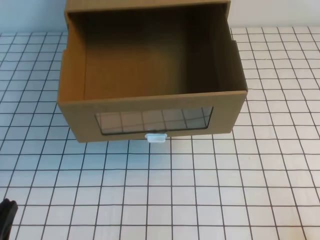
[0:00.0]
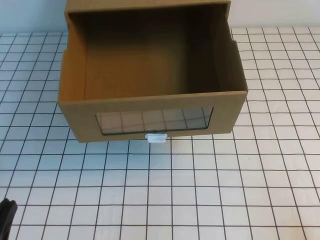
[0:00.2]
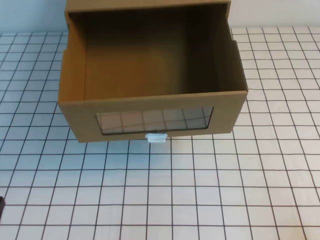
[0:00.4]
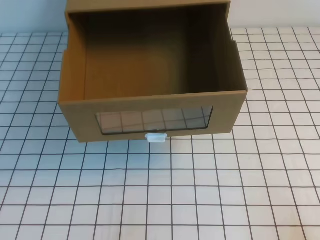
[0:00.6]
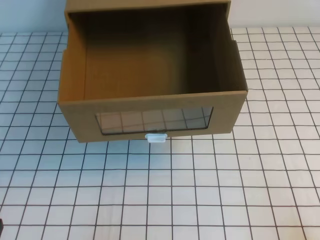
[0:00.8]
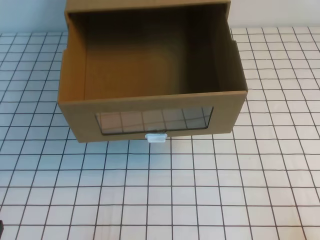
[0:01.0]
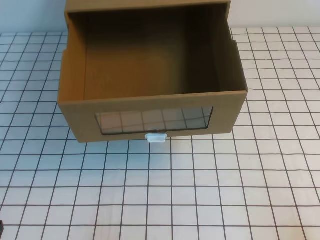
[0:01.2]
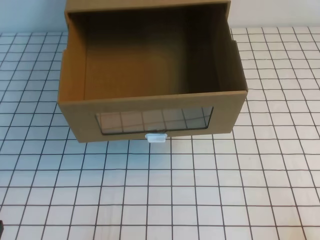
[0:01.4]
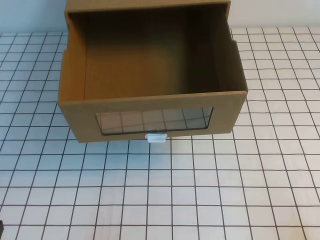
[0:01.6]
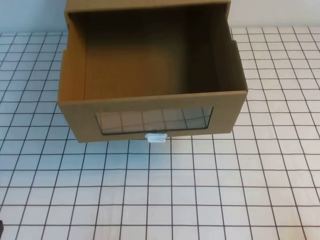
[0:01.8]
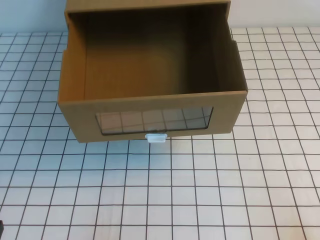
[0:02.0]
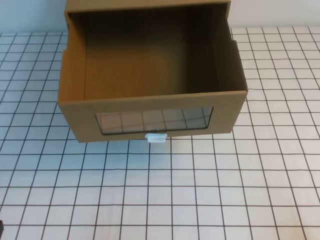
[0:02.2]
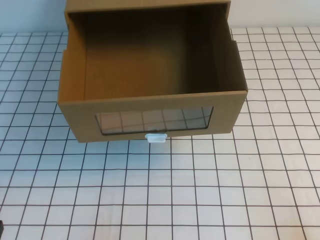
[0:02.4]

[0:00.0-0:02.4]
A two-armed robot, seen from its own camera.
Task of the whole recording: open the shoebox on the white tablecloth.
0:01.2 to 0:02.4: Both grippers stay put.

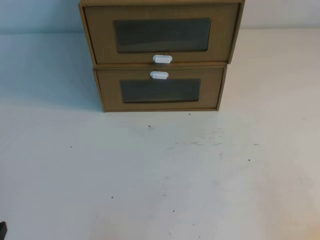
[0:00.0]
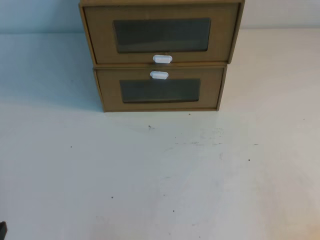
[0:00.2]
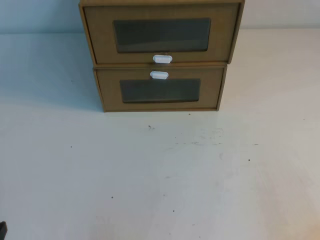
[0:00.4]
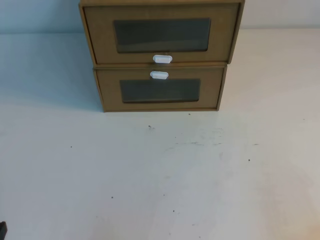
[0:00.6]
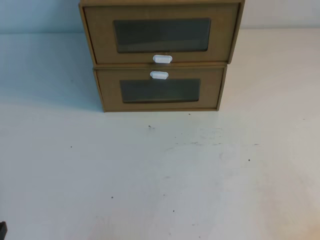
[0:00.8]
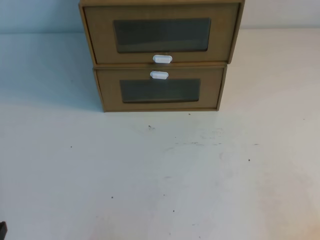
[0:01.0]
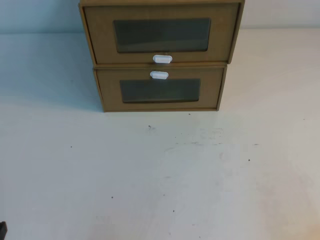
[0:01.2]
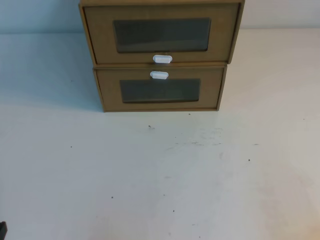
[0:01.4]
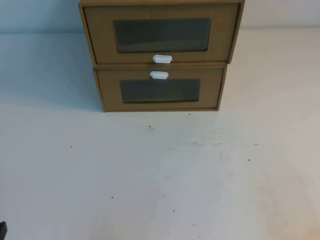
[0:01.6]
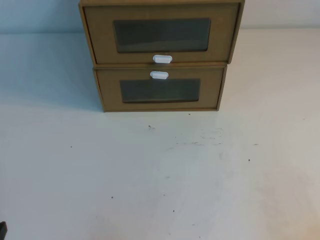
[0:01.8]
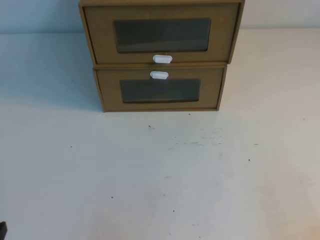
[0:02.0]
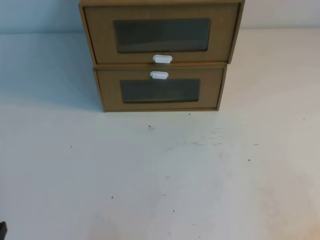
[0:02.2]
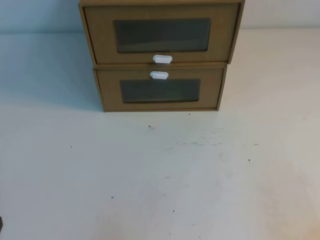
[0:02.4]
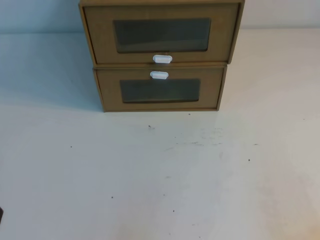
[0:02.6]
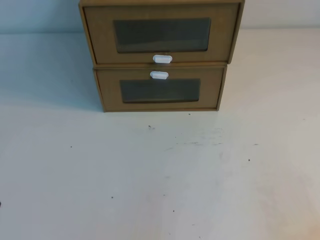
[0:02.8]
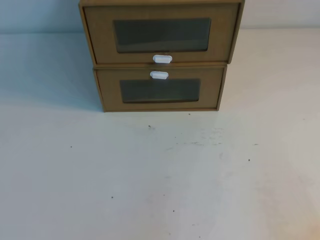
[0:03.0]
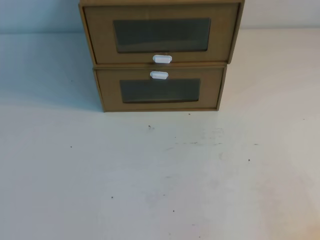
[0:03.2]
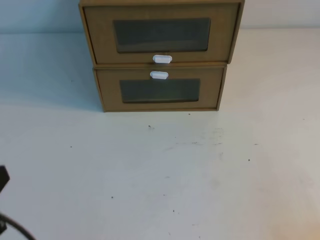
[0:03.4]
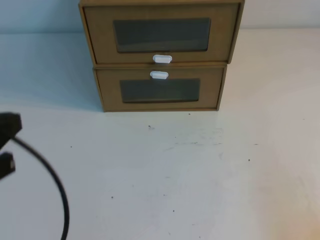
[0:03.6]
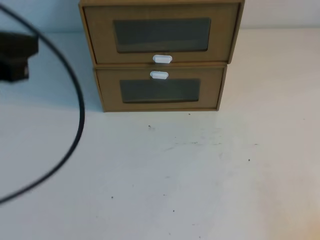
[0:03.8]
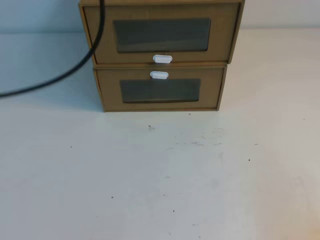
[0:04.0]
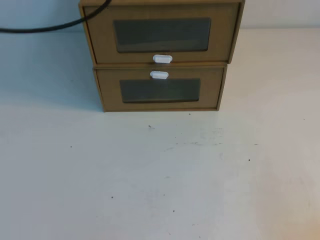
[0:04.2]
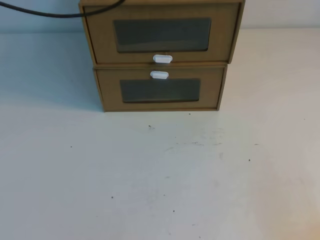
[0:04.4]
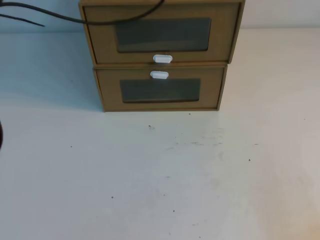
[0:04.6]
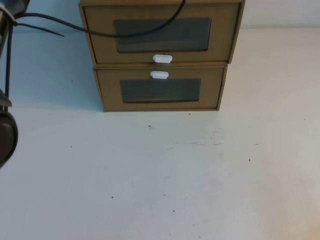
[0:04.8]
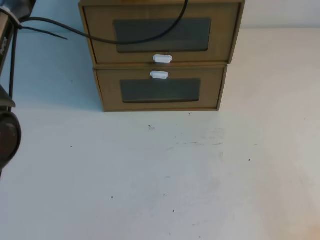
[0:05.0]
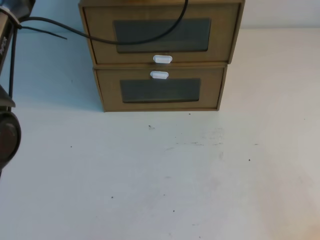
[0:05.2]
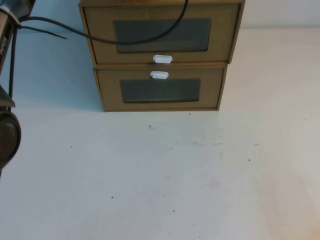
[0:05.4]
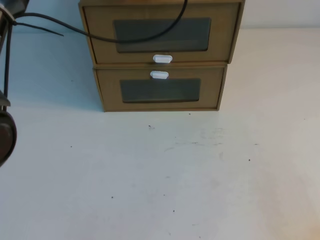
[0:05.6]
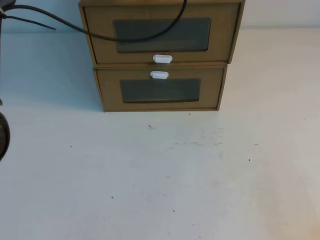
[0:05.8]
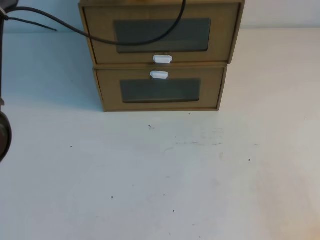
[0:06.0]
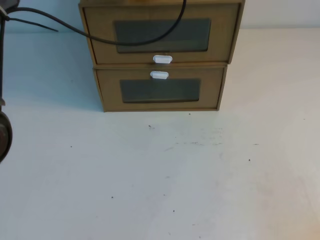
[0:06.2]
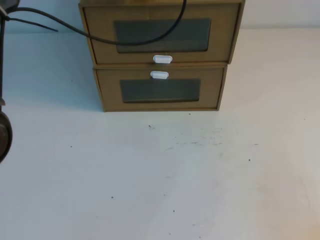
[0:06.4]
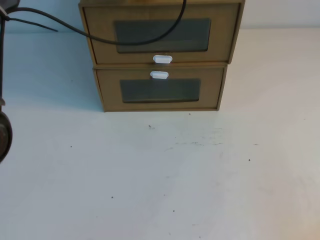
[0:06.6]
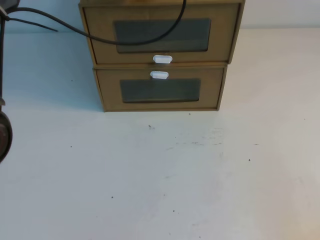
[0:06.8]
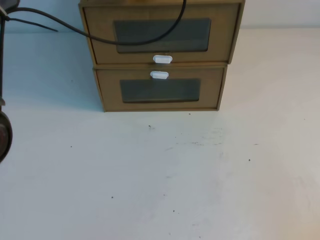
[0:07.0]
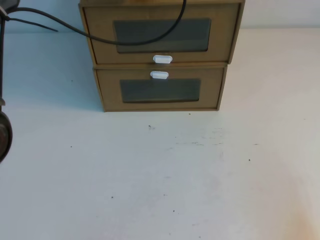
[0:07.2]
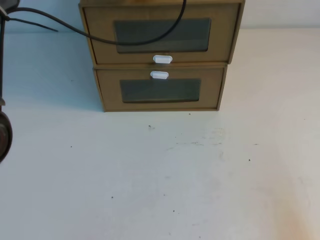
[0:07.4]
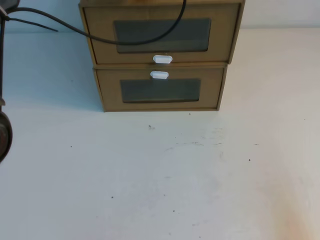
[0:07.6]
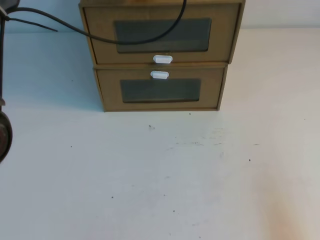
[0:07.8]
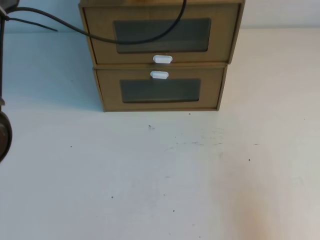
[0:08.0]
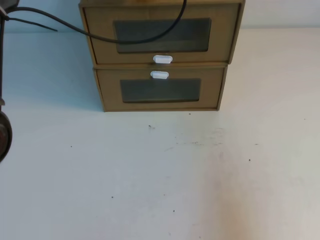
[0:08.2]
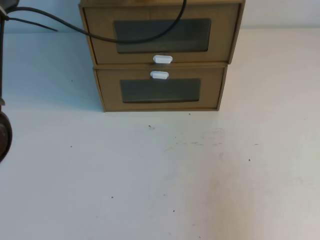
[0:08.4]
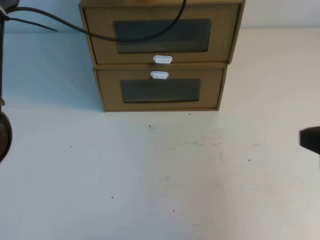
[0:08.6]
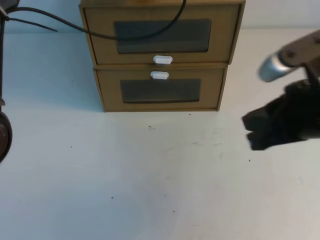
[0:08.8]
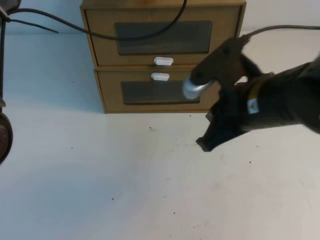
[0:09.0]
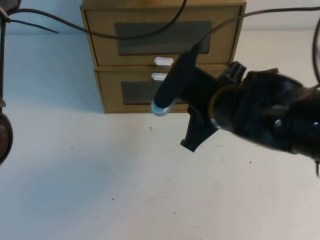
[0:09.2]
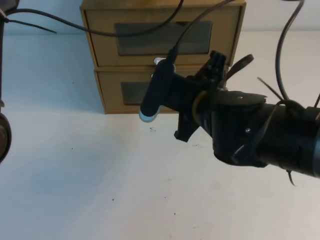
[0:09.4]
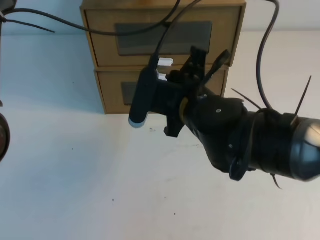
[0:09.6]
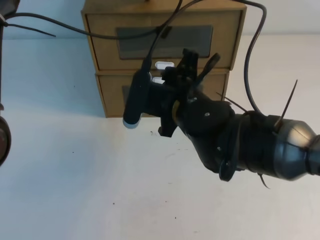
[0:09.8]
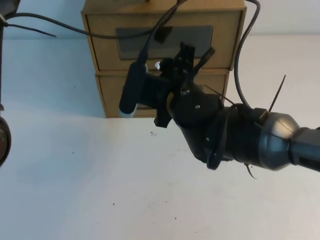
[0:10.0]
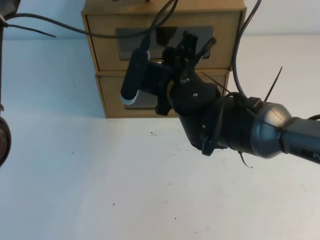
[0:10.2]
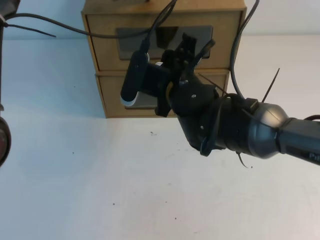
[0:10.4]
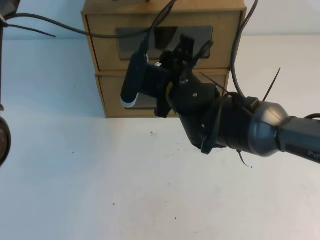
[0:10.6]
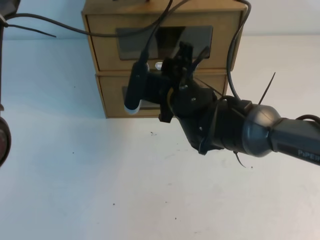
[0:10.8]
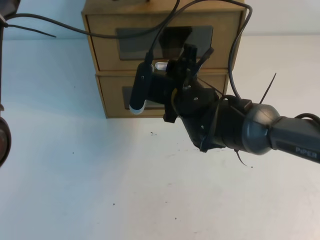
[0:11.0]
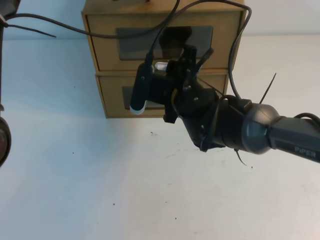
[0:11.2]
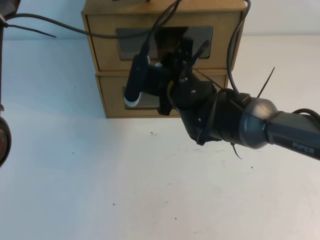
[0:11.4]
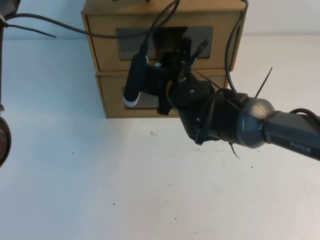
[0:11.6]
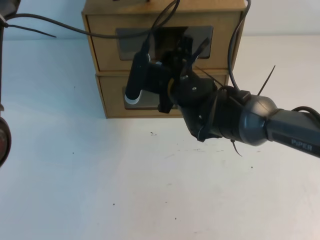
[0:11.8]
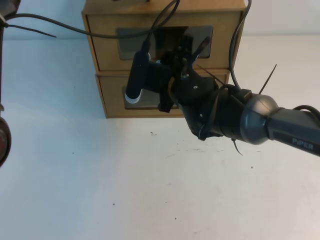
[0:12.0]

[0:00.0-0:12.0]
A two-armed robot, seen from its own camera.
Task of the whole recording: open the shoebox on the table.
0:03.0 to 0:04.4: The left gripper heads forward and upward, covering approximately 40 cm.
0:04.4 to 0:06.0: The left gripper goes approximately 10 cm forward, downward and to the right.
0:07.6 to 0:09.0: The right gripper moves forward, to the left and upward, roughly 25 cm.
0:09.0 to 0:10.4: The right gripper shifts approximately 20 cm to the left and forward, and opens its fingers.
0:10.4 to 0:12.0: There are only small adjustments of the grippers.

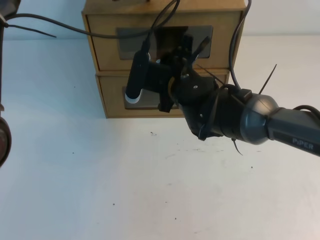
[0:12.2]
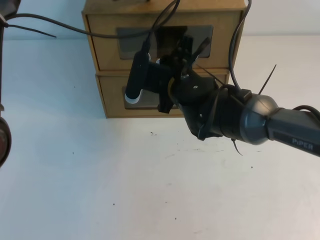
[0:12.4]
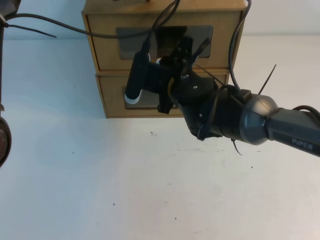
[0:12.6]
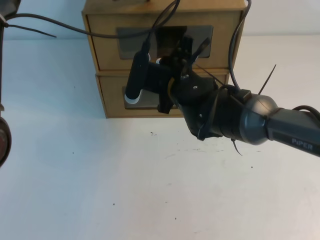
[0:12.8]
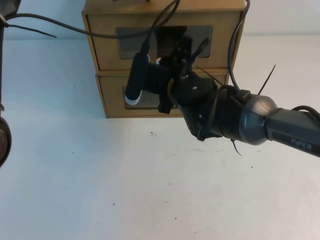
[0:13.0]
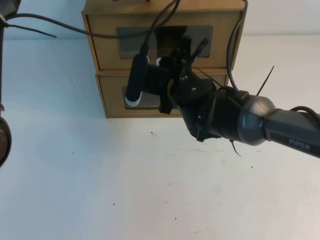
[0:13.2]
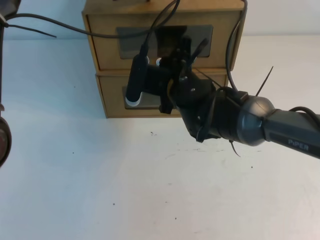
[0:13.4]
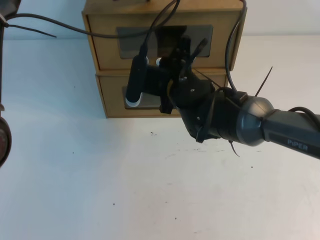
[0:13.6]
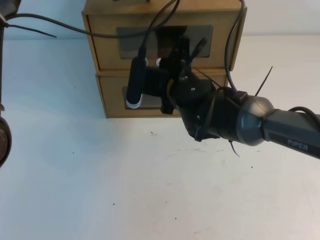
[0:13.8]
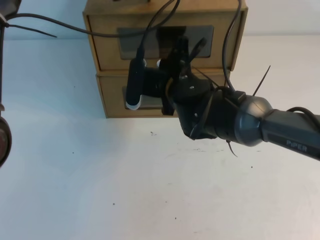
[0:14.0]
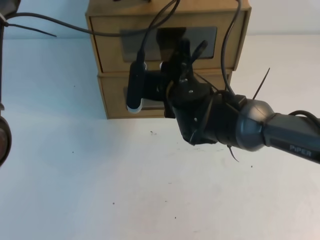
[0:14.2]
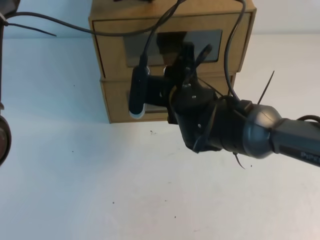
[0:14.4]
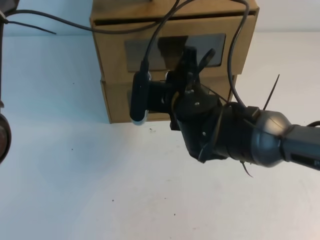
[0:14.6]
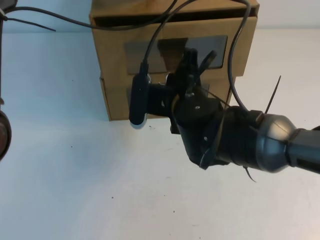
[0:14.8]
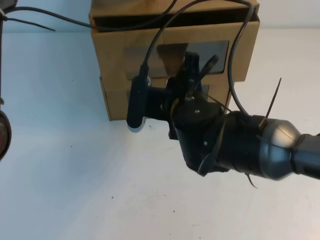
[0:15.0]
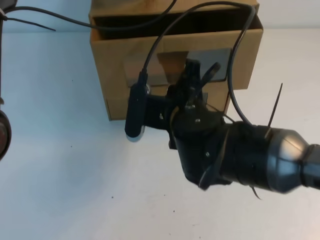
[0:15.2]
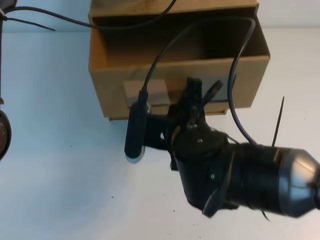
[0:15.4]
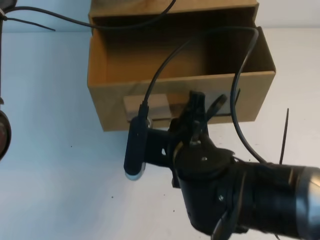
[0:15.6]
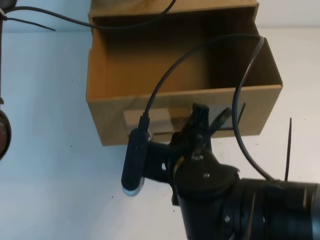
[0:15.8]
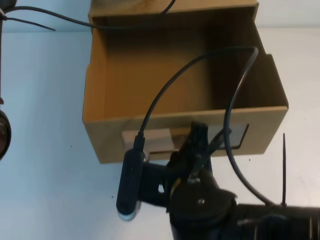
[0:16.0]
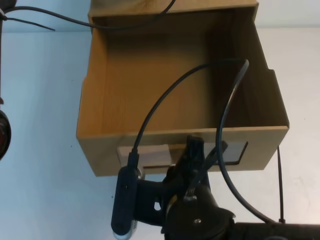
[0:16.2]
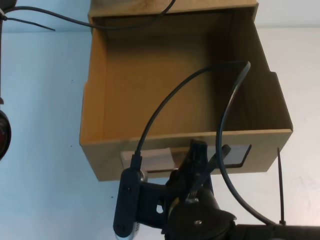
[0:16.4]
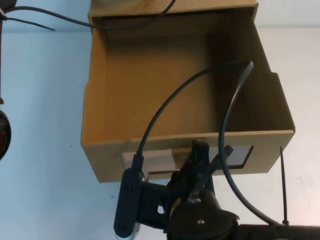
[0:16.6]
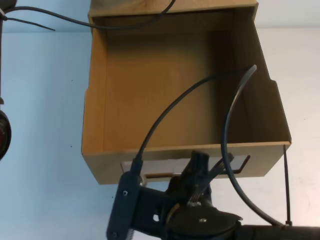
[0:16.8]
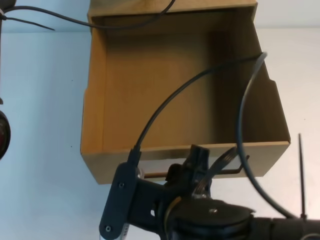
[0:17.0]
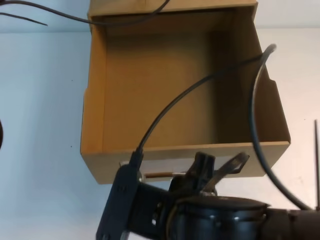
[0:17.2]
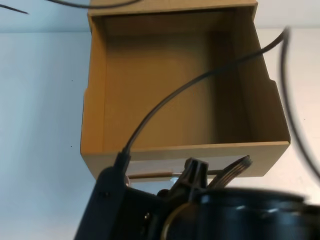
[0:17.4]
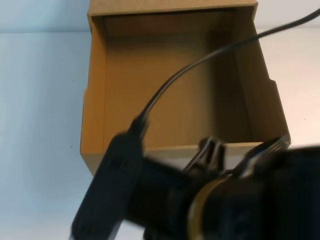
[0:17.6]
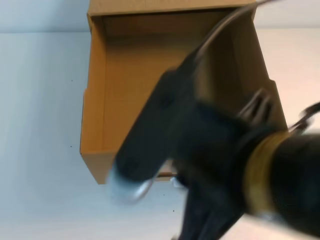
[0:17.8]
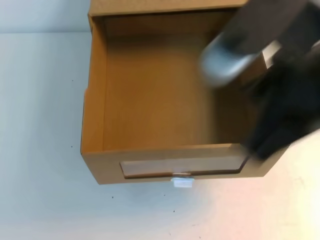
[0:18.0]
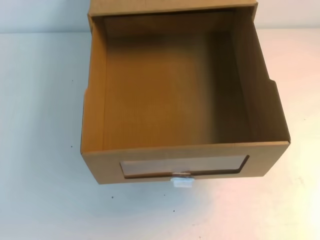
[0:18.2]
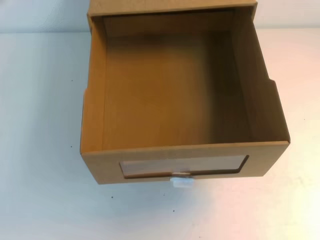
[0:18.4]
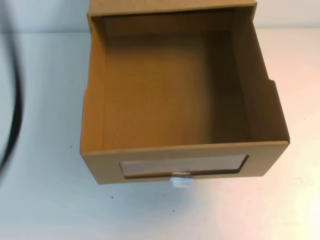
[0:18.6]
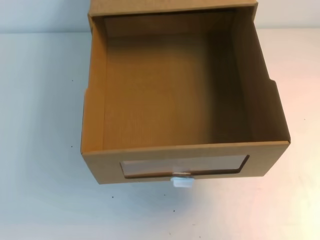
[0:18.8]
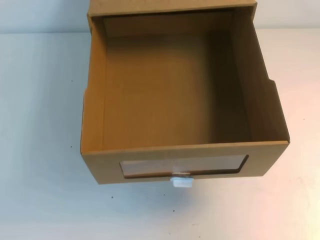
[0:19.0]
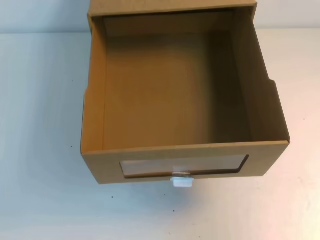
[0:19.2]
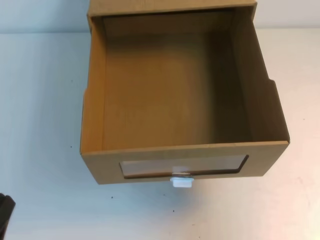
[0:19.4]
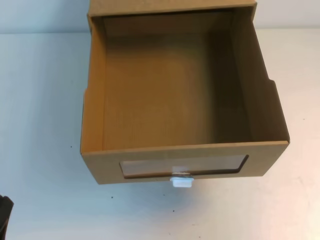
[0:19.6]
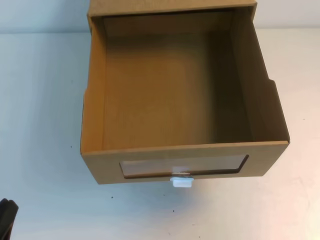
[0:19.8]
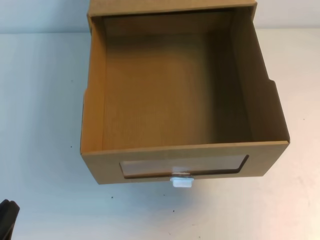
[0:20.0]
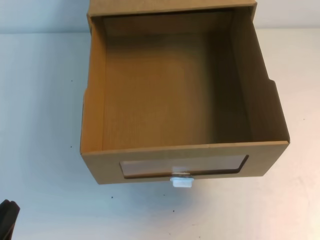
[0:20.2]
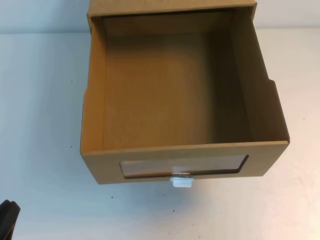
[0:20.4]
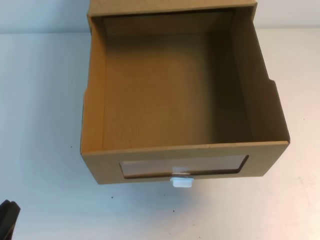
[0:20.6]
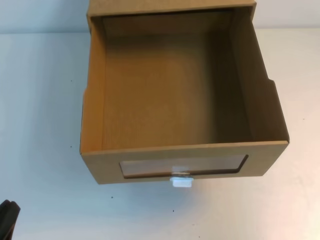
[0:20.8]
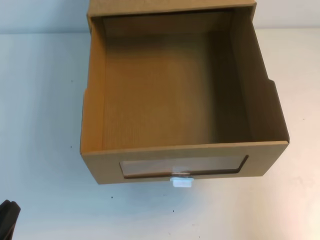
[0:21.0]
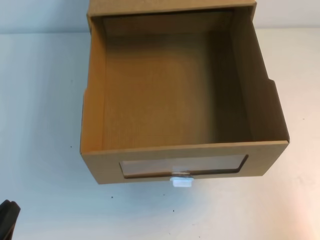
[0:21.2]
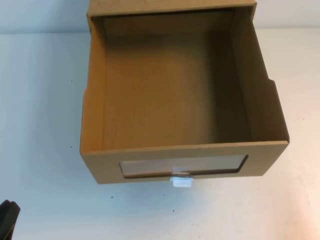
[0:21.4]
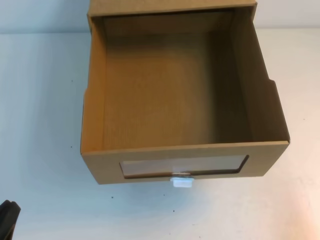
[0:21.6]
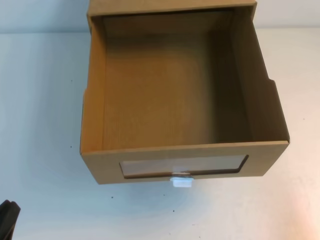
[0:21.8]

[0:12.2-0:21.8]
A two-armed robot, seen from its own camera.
Task of the whole recording: open the shoebox on the table.
0:12.2 to 0:13.8: The right gripper closes its fingers.
0:13.8 to 0:15.4: The right gripper is displaced backward by approximately 10 cm.
0:15.4 to 0:17.0: The right gripper shifts roughly 15 cm backward, and opens up.
0:17.0 to 0:18.6: The left gripper shifts roughly 35 cm backward and upward. The right gripper goes some 30 cm to the right and upward, and closes.
0:18.6 to 0:20.2: The right gripper heads downward and backward, covering about 10 cm. The left gripper travels downward by some 35 cm.
0:20.2 to 0:21.8: The right gripper moves downward, some 20 cm.
